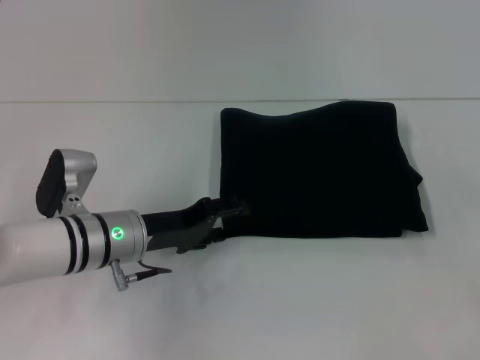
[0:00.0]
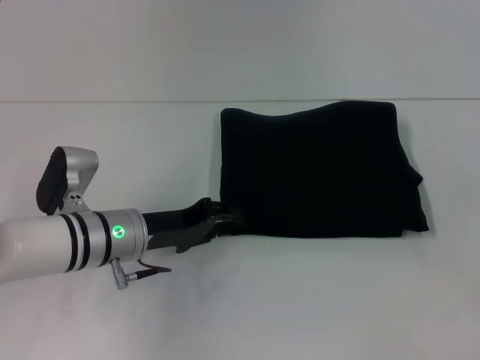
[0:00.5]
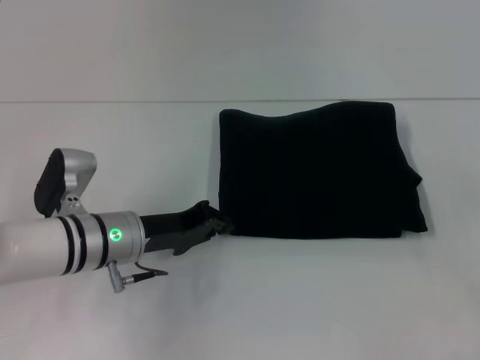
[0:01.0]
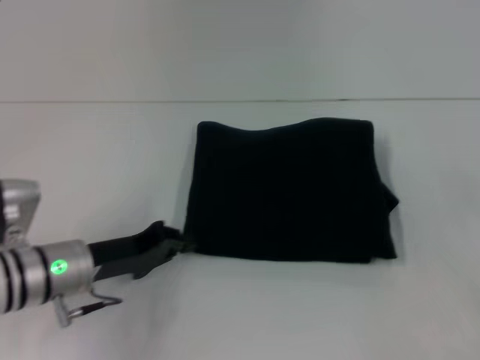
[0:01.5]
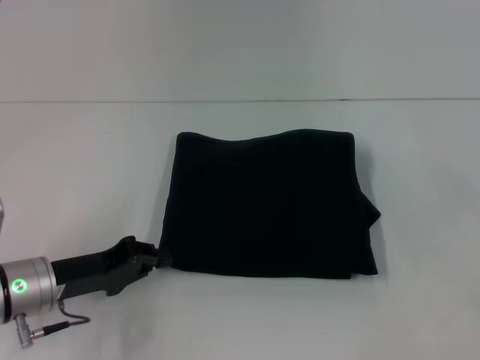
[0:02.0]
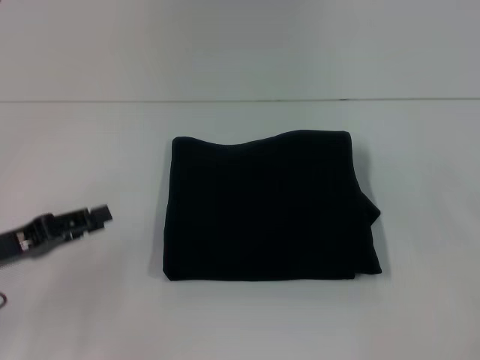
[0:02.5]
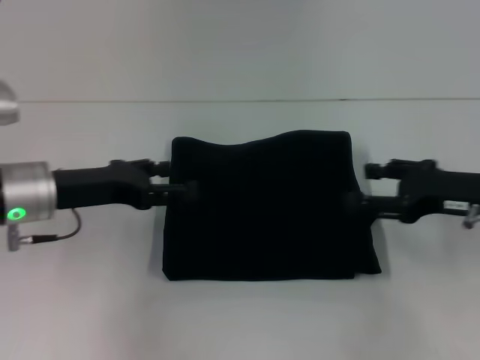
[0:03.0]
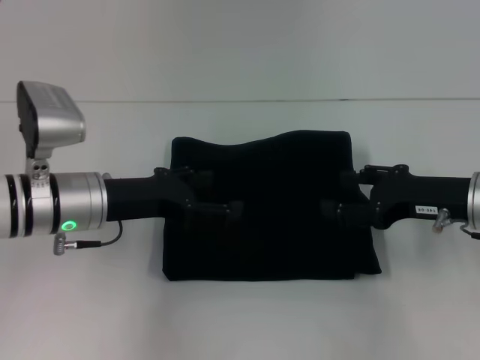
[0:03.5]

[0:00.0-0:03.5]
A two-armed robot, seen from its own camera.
0:00.0 to 0:02.0: The left gripper travels to the left and backward by some 10 cm, and closes.
0:02.0 to 0:03.5: The left gripper travels forward and upward by about 10 cm, and opens; the right gripper travels to the left by approximately 10 cm.

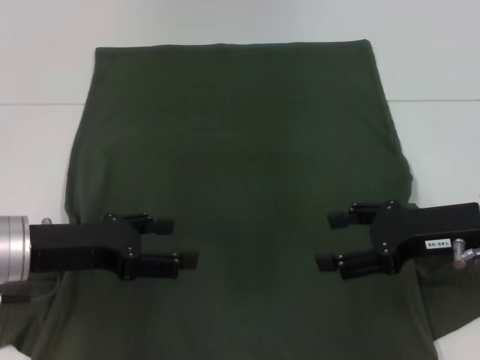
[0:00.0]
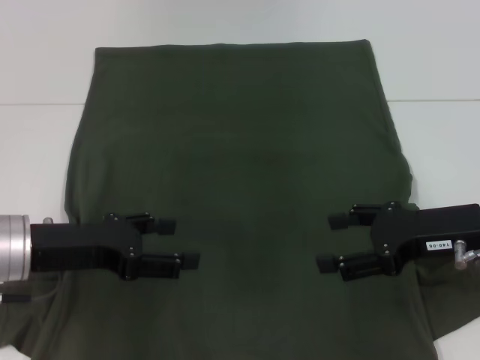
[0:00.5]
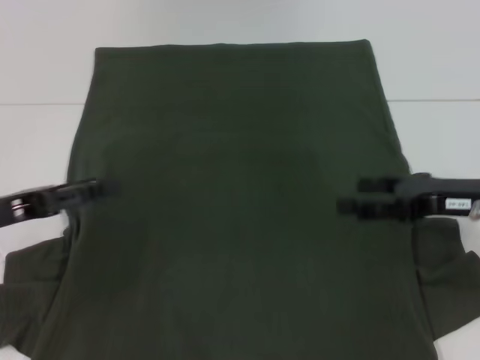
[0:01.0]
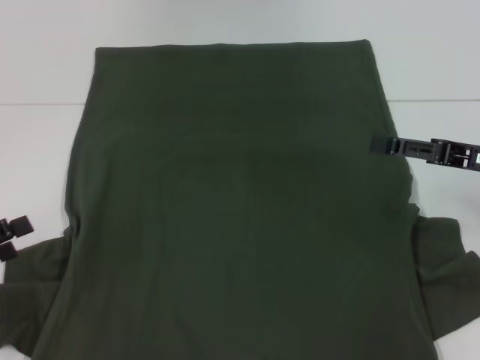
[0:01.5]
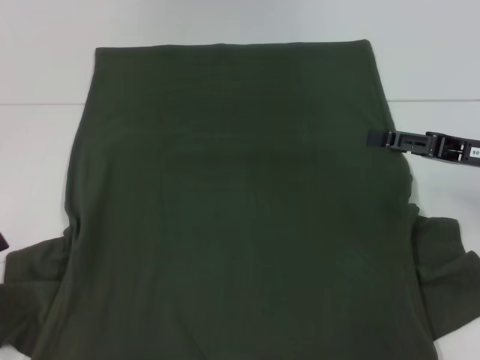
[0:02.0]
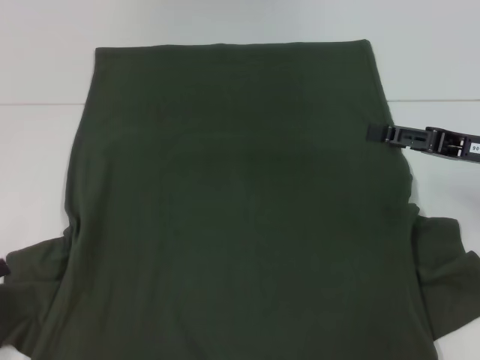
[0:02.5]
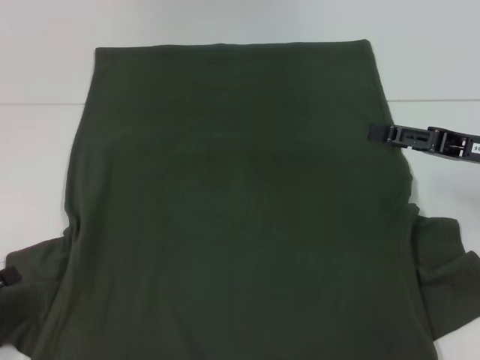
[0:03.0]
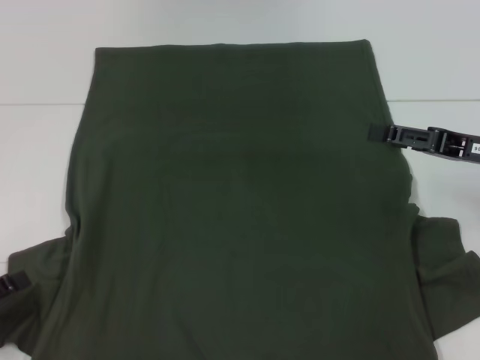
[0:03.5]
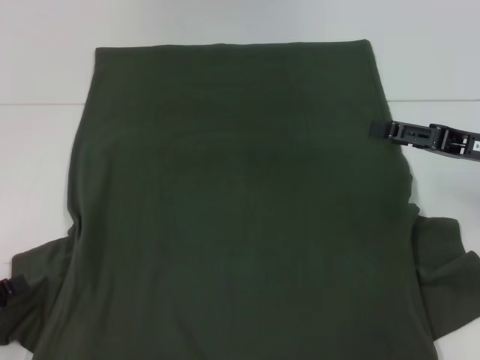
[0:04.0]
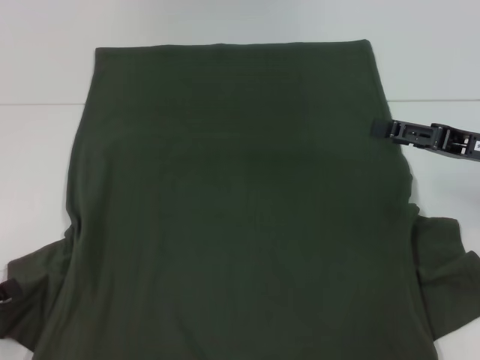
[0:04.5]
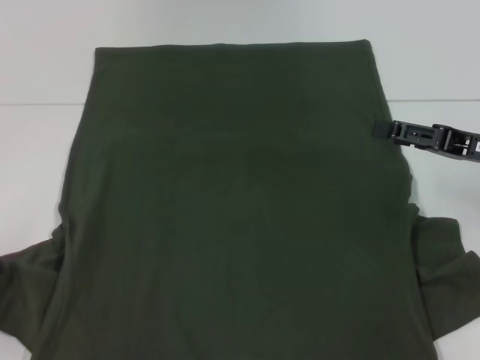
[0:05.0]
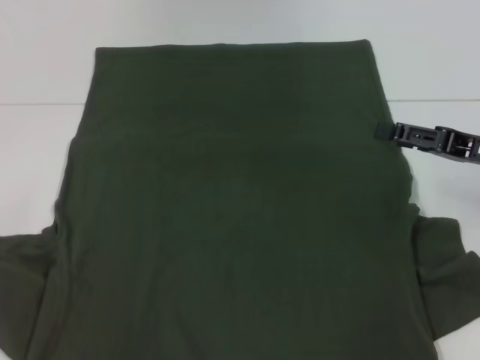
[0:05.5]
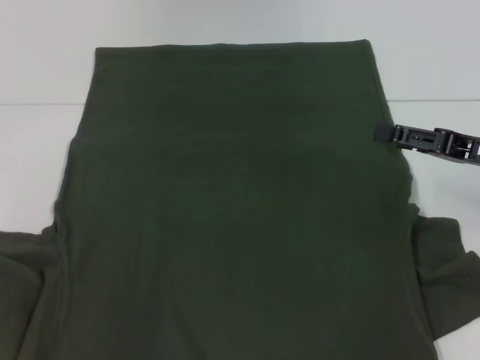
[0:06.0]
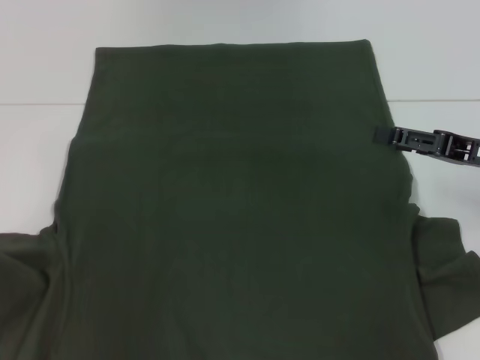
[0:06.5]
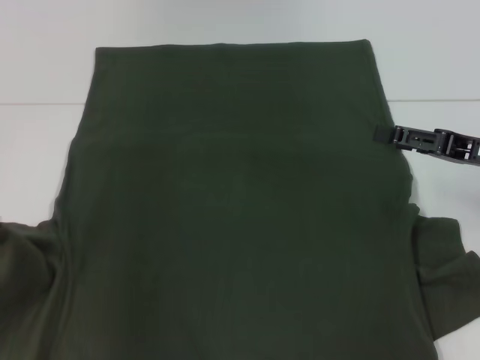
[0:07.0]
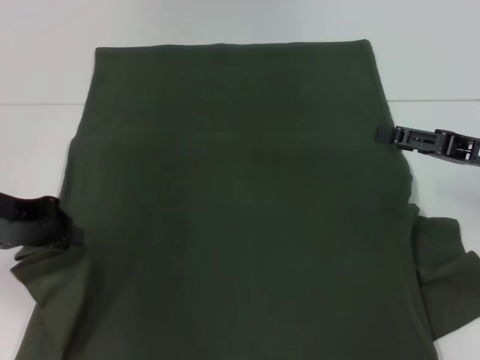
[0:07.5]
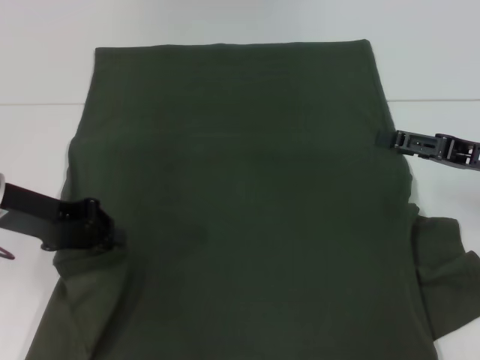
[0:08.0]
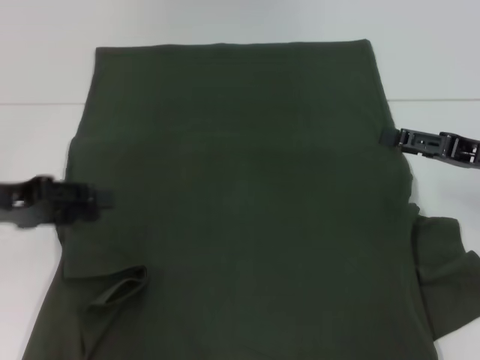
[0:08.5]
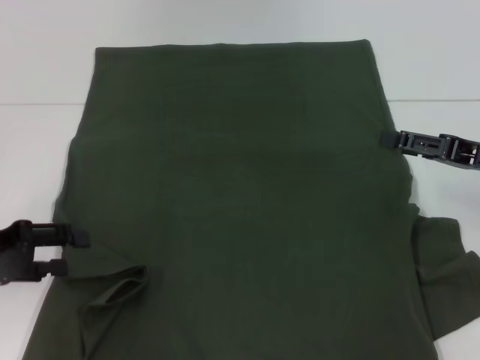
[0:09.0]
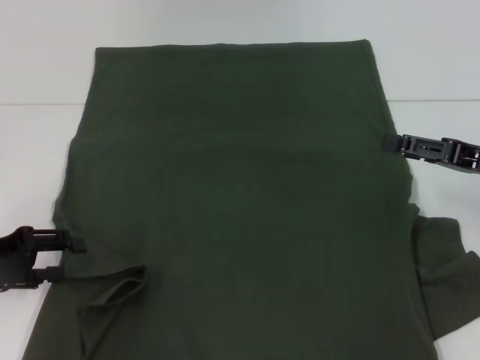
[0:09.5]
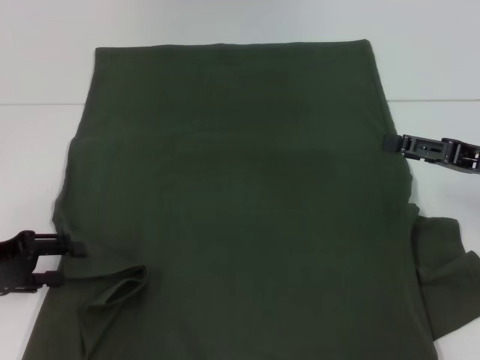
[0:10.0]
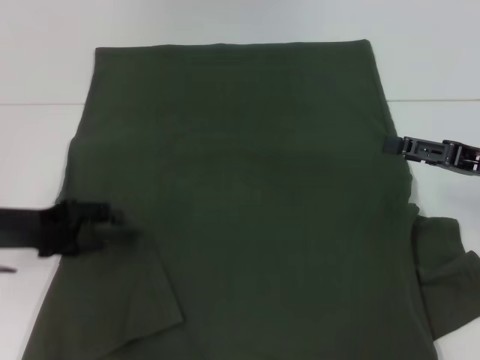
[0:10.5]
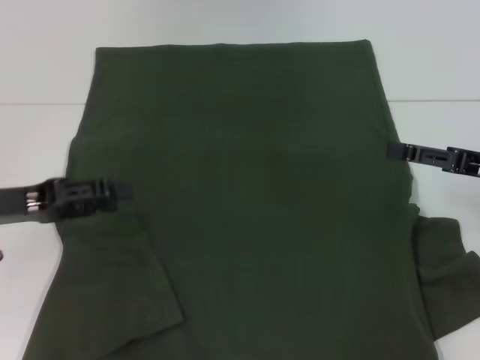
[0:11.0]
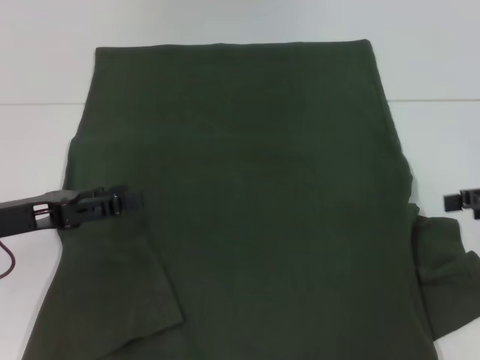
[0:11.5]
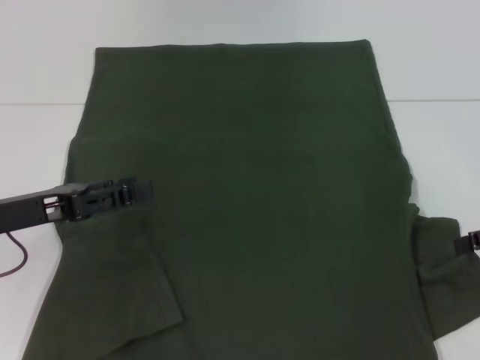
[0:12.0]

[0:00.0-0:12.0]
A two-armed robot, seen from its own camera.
0:00.0 to 0:02.0: The left gripper moves to the left and backward, about 15 cm. The right gripper ends up roughly 5 cm from where it was.
0:02.0 to 0:04.0: The grippers move only a little.
0:04.0 to 0:06.0: The left gripper heads upward, forward and to the left, covering about 15 cm, and closes its fingers.
0:06.0 to 0:08.0: The left gripper heads to the right and forward, covering roughly 15 cm.
0:08.0 to 0:10.0: The left gripper shifts about 10 cm to the left, downward and backward, and opens its fingers.
0:10.0 to 0:12.0: The grippers both shift to the right by roughly 5 cm.

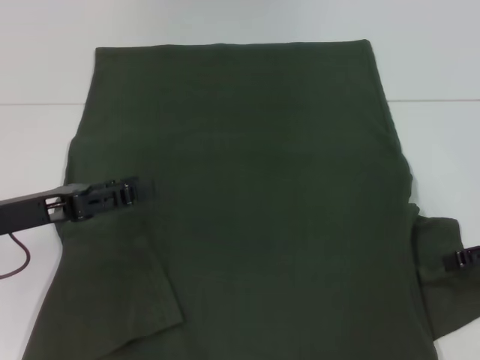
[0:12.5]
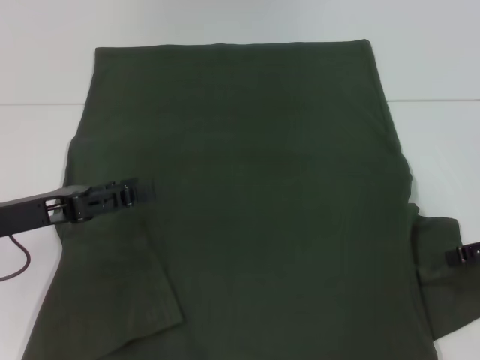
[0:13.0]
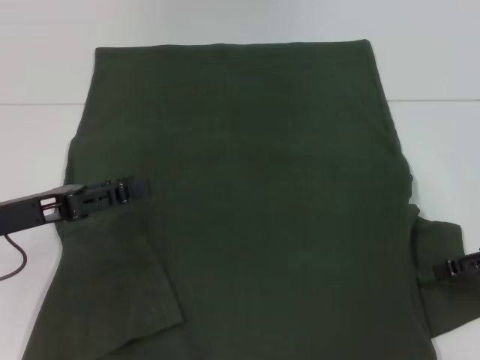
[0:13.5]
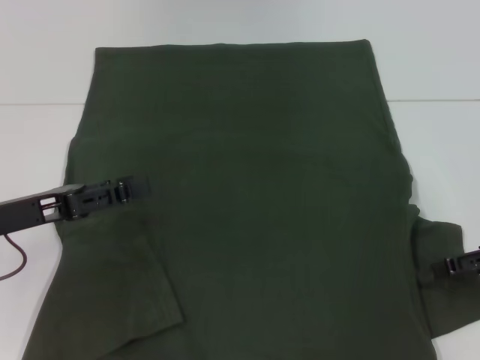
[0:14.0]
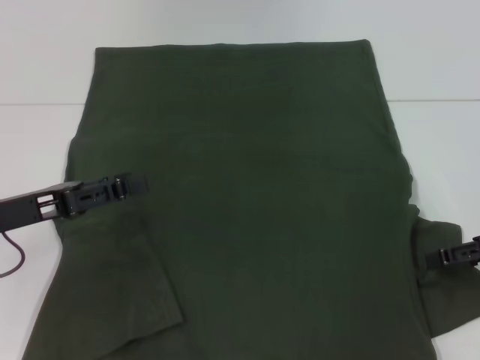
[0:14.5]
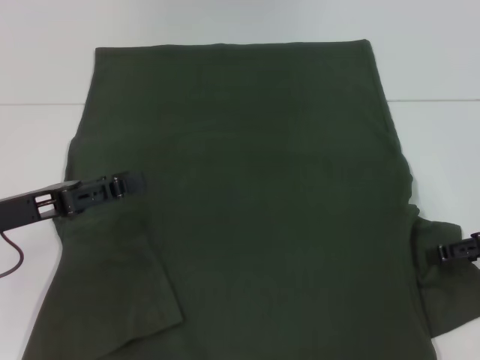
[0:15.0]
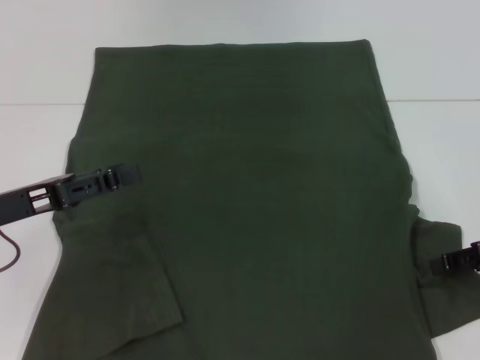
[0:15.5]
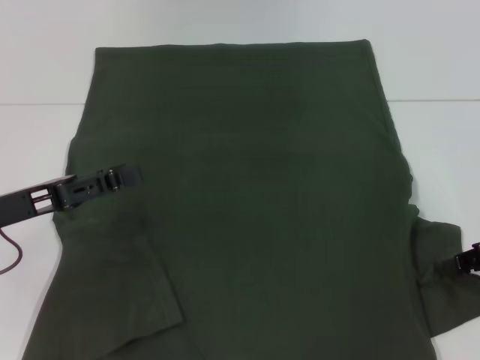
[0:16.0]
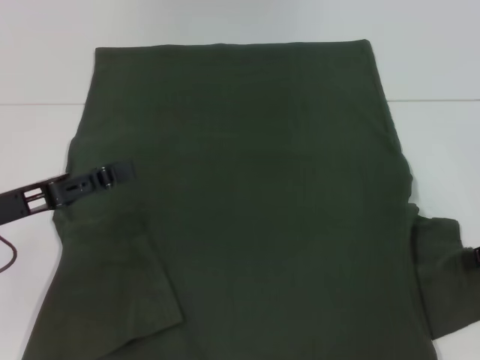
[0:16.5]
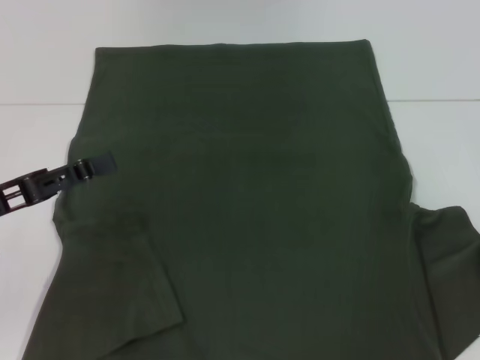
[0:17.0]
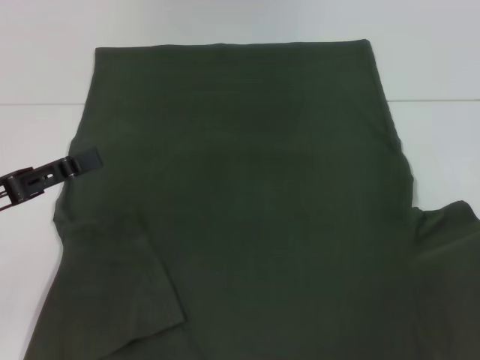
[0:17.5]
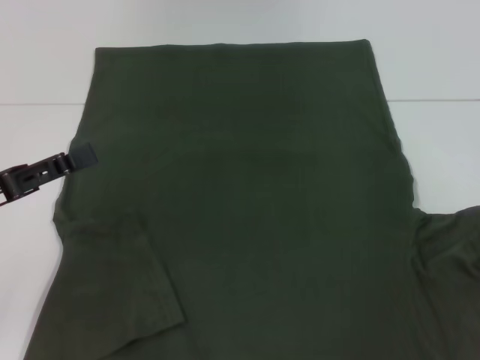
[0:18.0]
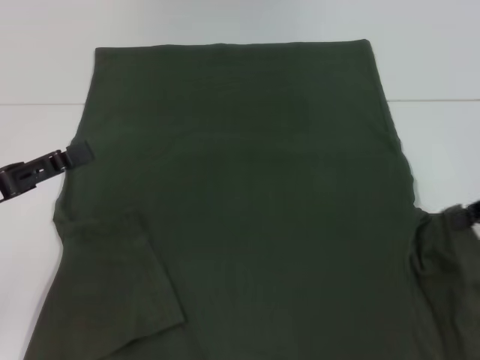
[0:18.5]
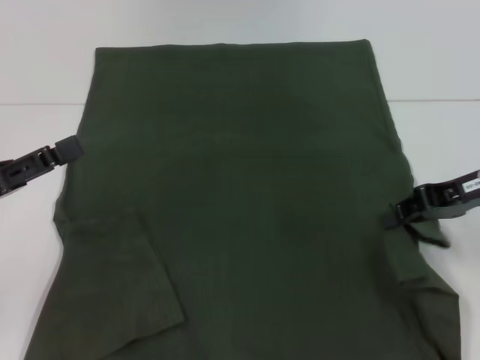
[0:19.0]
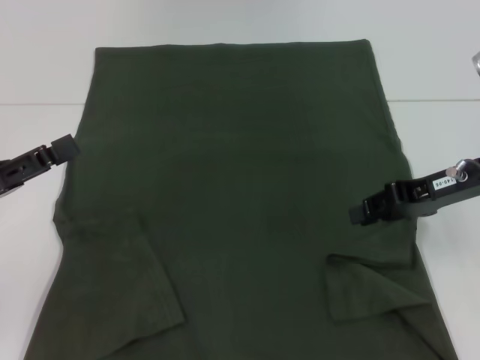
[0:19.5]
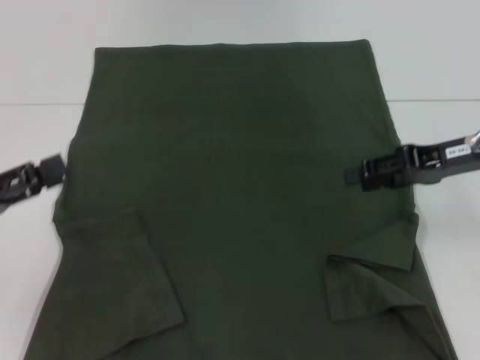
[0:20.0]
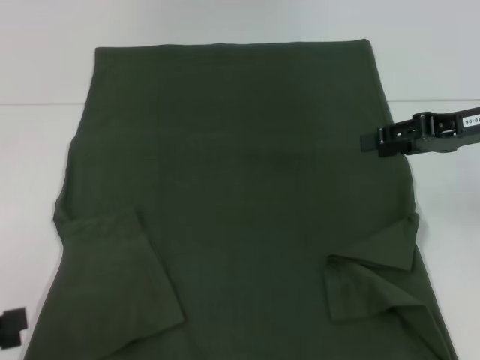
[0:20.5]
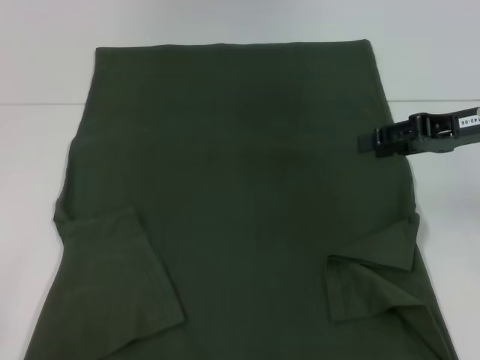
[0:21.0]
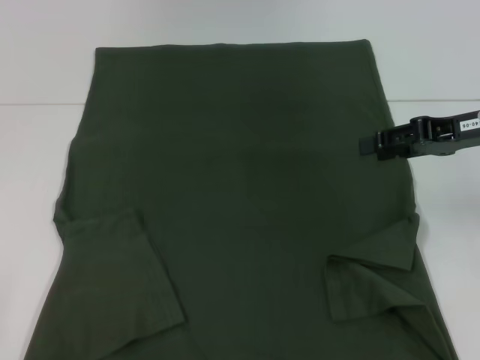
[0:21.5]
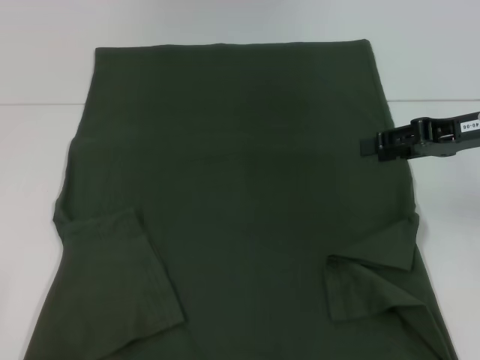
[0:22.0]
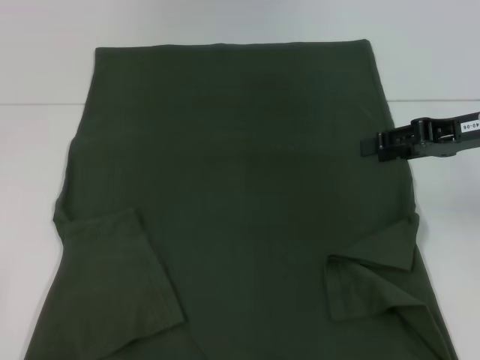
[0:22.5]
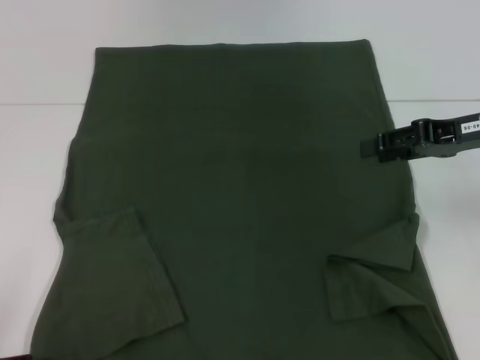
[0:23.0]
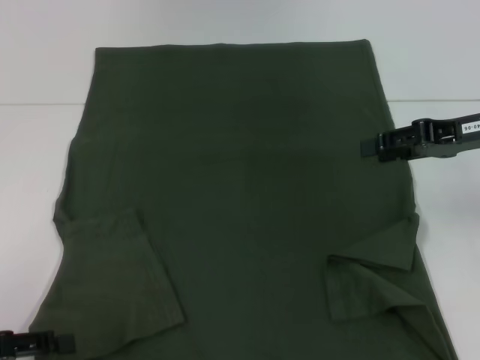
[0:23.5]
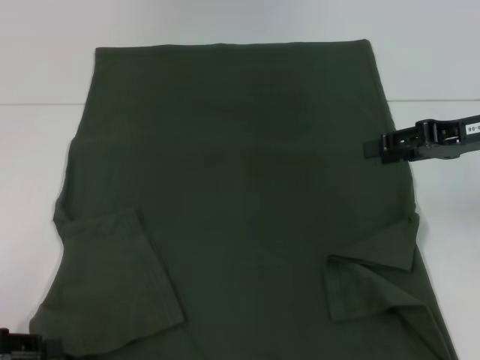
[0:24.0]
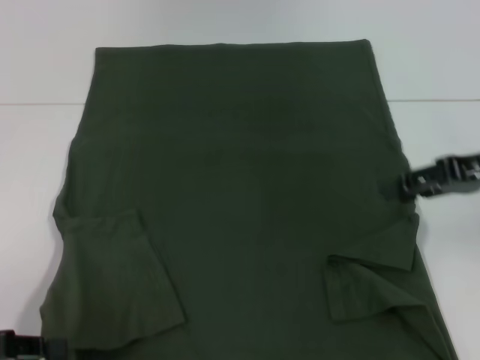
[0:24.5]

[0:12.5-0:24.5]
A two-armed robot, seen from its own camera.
Step, 0:14.0 to 0:20.0: Fold the bottom right sleeve with your right hand.
0:12.5 to 0:14.5: Both grippers stay put.
0:16.5 to 0:18.5: The right gripper goes some 5 cm upward.
0:18.5 to 0:20.5: The left gripper goes about 10 cm backward and to the left; the right gripper goes some 10 cm to the left and forward, and opens up.
0:20.5 to 0:22.5: The left gripper ends up about 5 cm from where it was.
0:22.5 to 0:24.5: The left gripper ends up approximately 5 cm from where it was, and closes its fingers.
